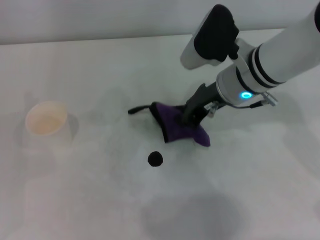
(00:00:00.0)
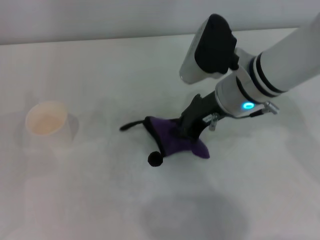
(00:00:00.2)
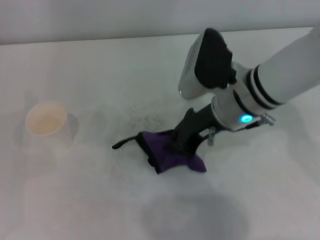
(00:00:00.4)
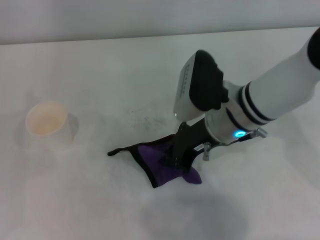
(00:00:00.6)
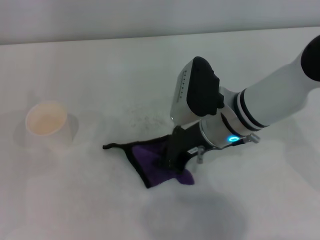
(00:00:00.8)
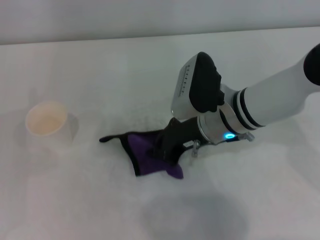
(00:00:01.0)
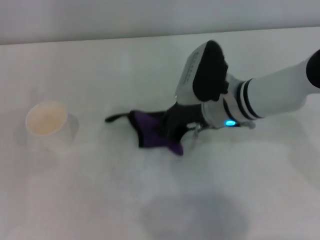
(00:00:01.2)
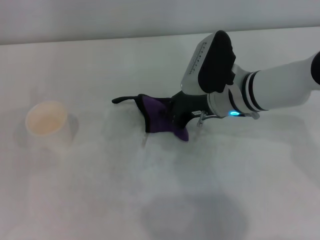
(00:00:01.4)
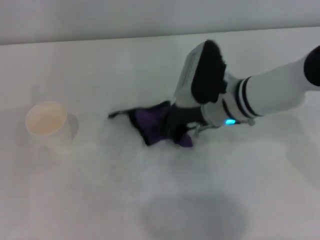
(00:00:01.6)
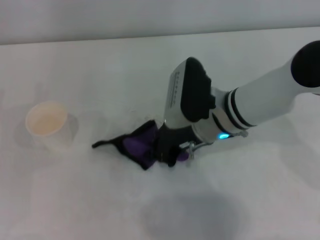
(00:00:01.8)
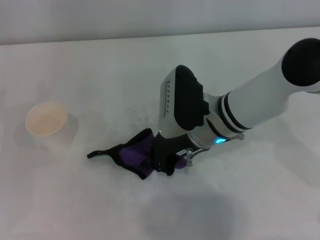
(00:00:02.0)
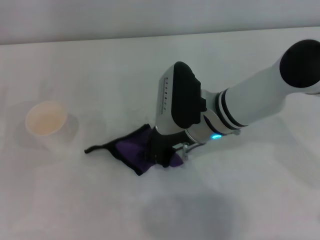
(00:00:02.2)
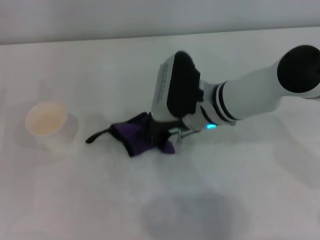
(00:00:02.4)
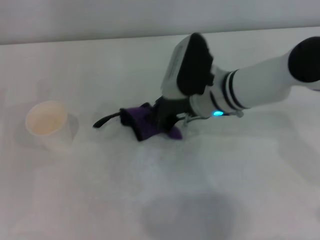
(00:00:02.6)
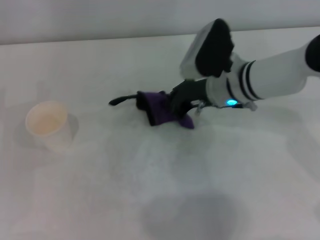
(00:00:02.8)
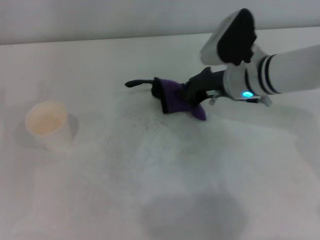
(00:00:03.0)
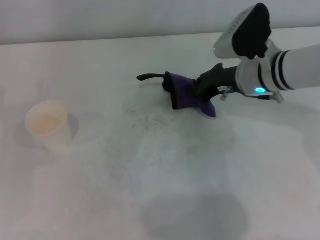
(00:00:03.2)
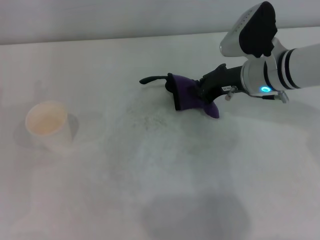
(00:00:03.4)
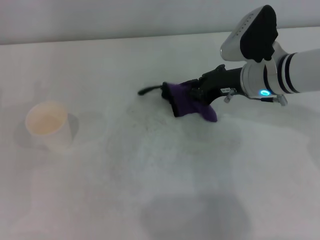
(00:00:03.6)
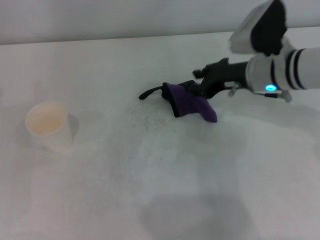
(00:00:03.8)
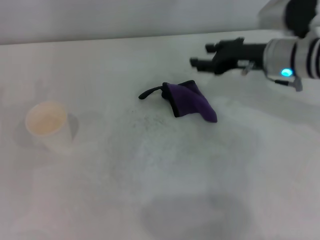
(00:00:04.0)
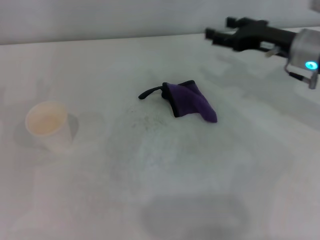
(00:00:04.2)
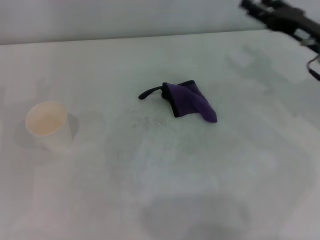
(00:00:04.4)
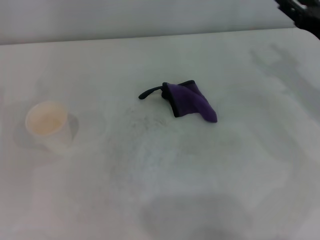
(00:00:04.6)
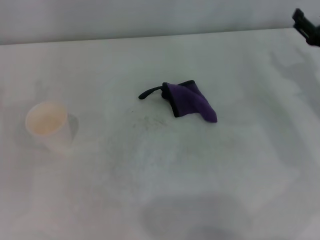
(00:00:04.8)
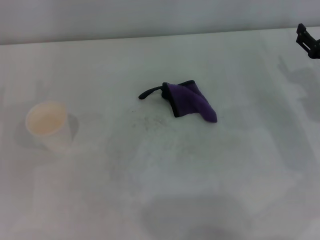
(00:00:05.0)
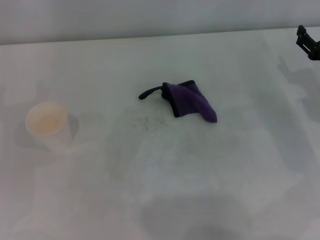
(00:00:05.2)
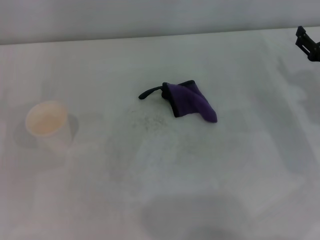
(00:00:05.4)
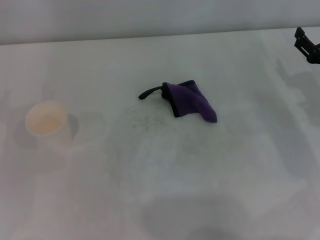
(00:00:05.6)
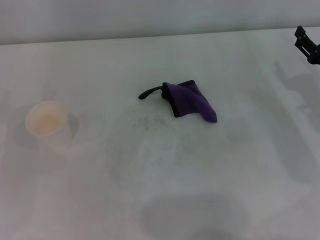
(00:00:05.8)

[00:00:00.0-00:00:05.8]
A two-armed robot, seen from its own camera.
Step, 00:00:00.0 to 00:00:02.8: Wipe the stains off the table with the right gripper.
Step, 00:00:03.0 to 00:00:03.6: Place the rag on the table with the right gripper.
00:00:00.0 to 00:00:01.4: There are only small adjustments of the grippers.
00:00:02.8 to 00:00:04.4: The right gripper travels to the right by about 15 cm, and opens its fingers.
00:00:04.4 to 00:00:05.8: The right gripper heads downward, covering about 5 cm.
